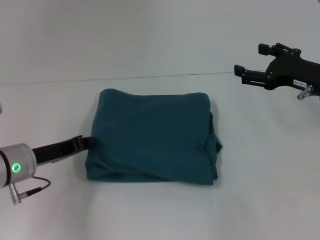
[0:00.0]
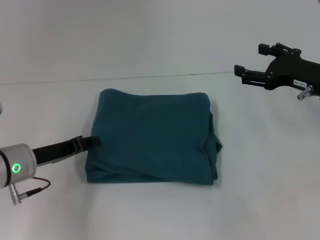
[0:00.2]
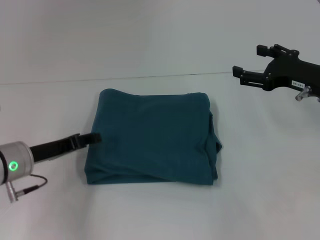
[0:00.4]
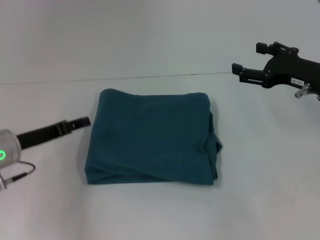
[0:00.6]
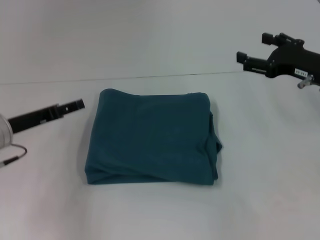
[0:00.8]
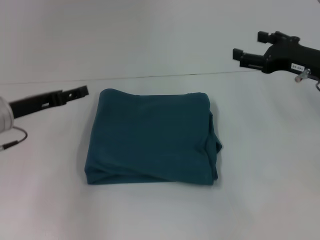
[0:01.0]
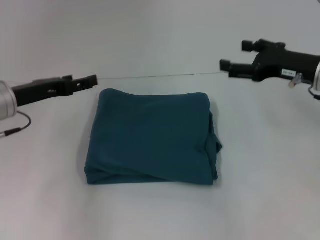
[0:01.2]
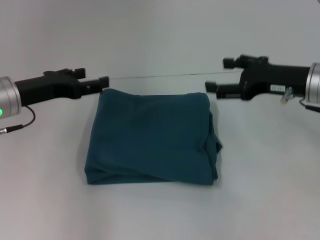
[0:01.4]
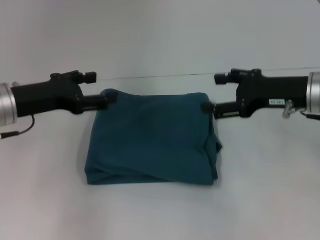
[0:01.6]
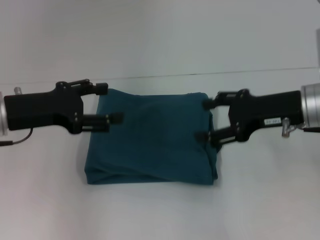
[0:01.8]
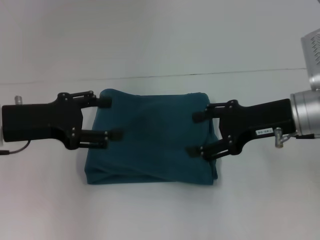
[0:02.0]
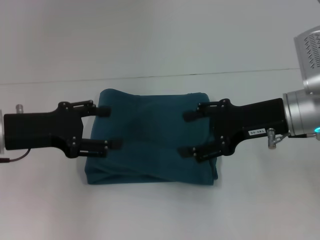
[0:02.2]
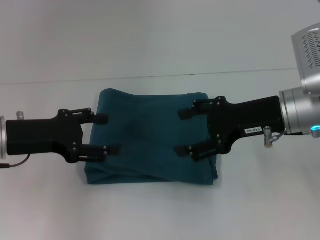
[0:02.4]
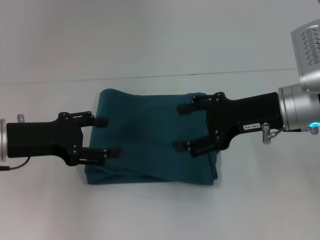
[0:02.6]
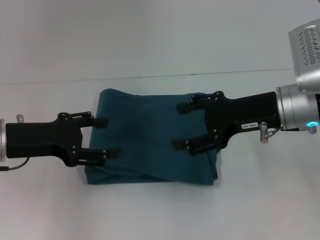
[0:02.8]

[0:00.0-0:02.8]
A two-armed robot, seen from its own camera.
0:00.0 to 0:01.4: The left gripper moves upward and forward, approximately 10 cm, and opens its fingers.
0:01.4 to 0:02.8: The left gripper is displaced backward by some 5 cm. Meanwhile the right gripper moves to the left, roughly 5 cm.
